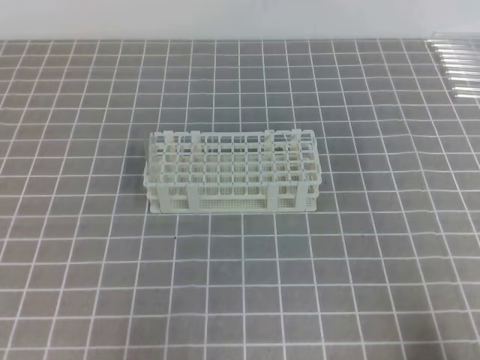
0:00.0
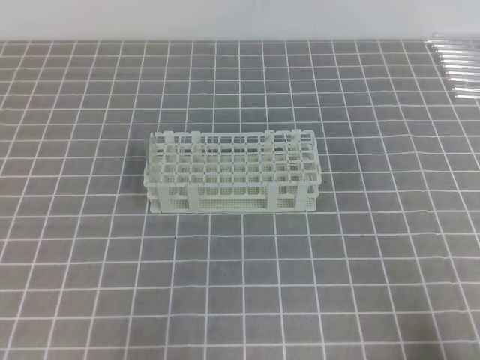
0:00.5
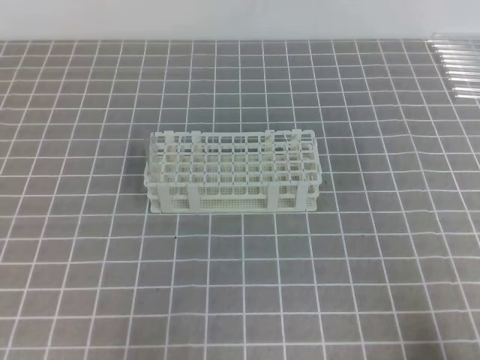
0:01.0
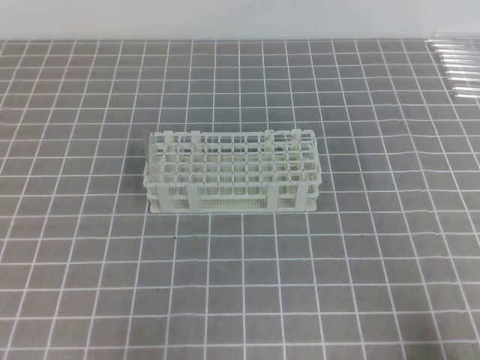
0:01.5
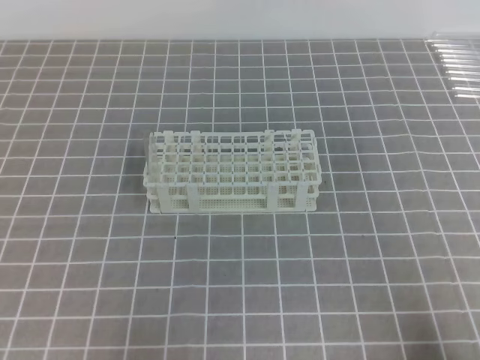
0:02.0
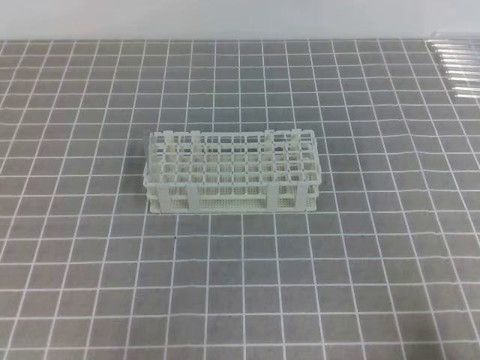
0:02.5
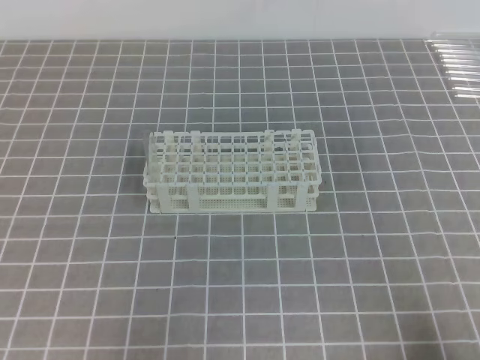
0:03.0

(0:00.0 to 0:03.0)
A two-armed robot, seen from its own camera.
0:00.0 - 0:03.0: Both grippers stay about where they are.

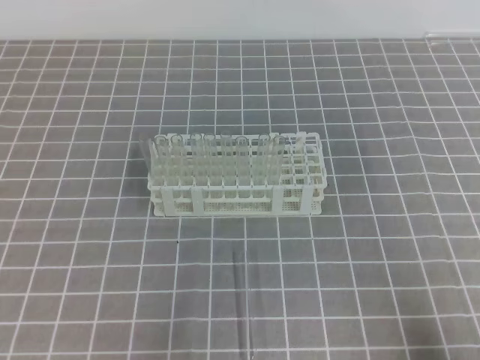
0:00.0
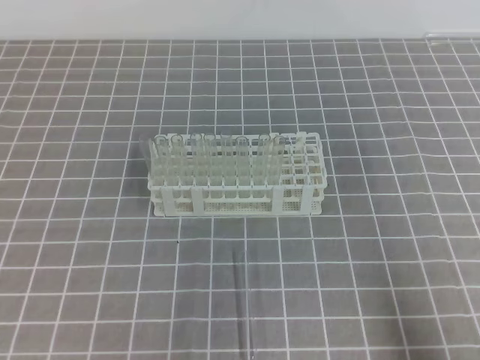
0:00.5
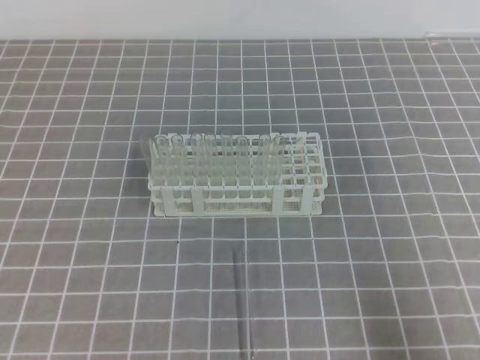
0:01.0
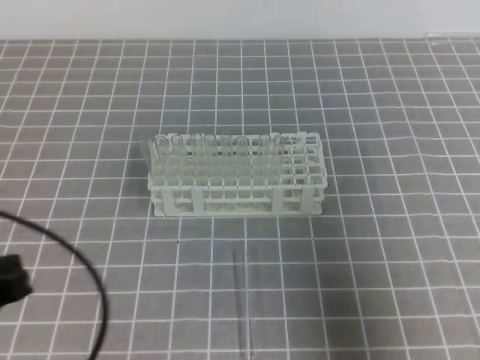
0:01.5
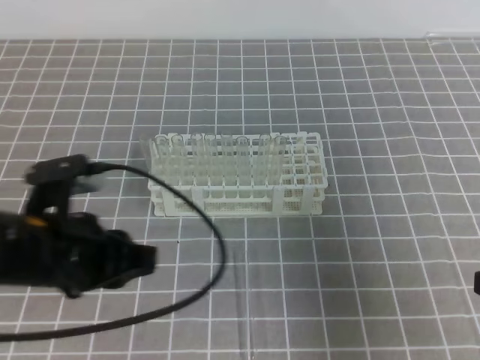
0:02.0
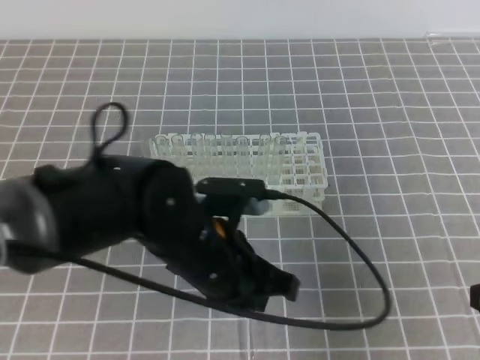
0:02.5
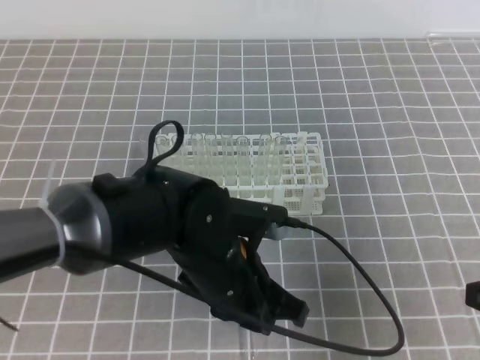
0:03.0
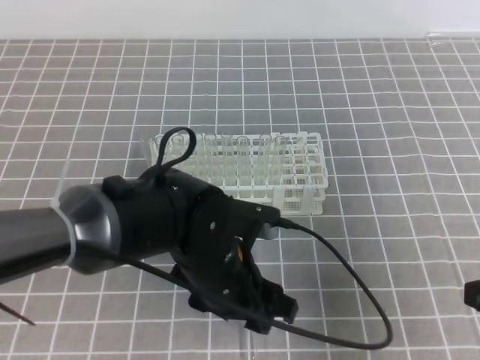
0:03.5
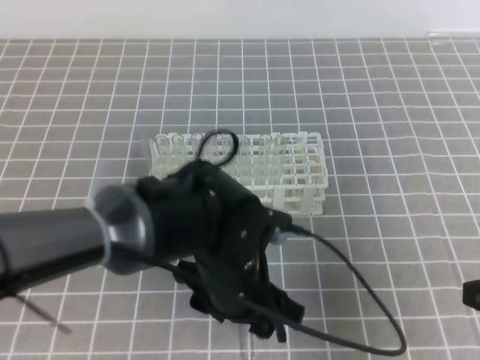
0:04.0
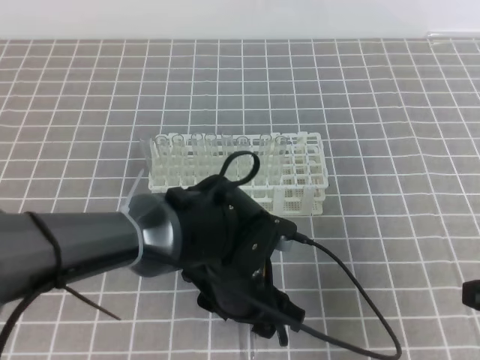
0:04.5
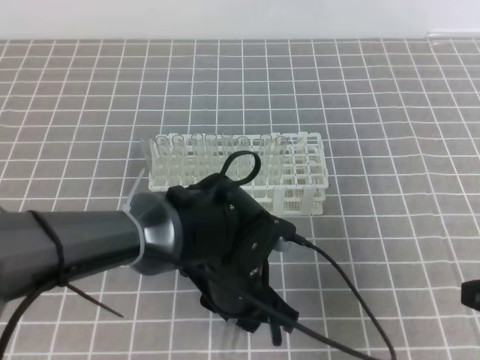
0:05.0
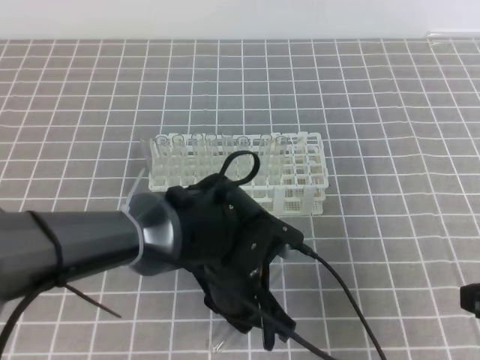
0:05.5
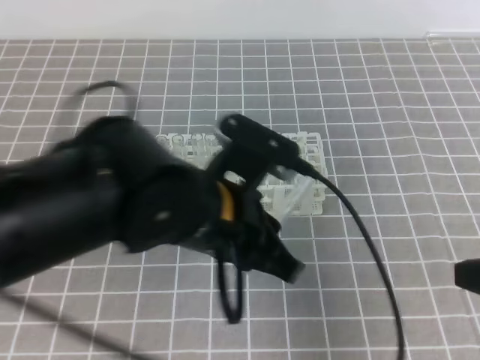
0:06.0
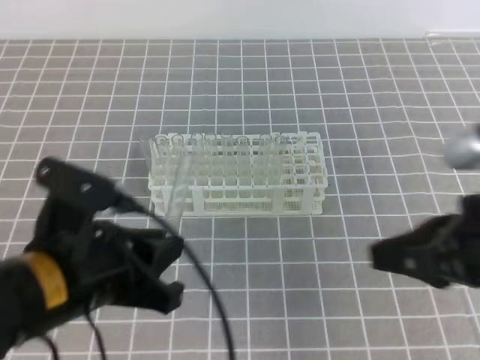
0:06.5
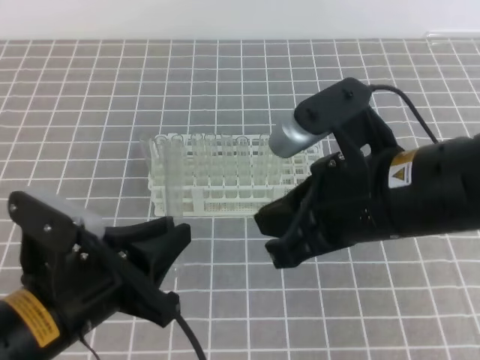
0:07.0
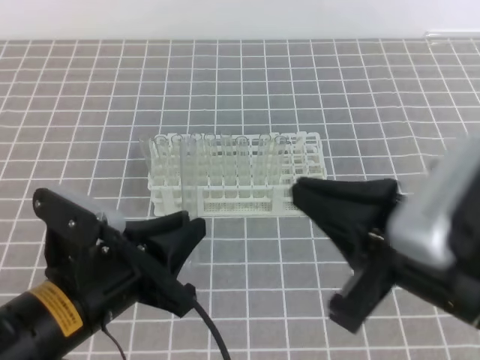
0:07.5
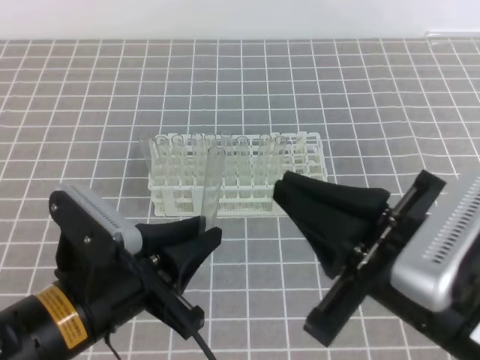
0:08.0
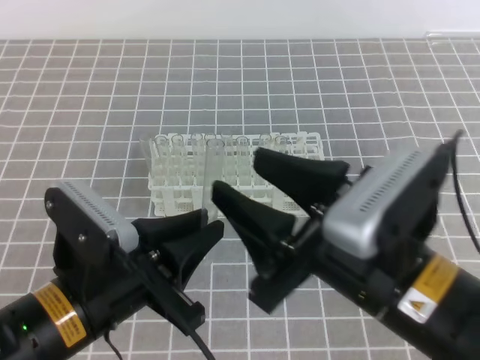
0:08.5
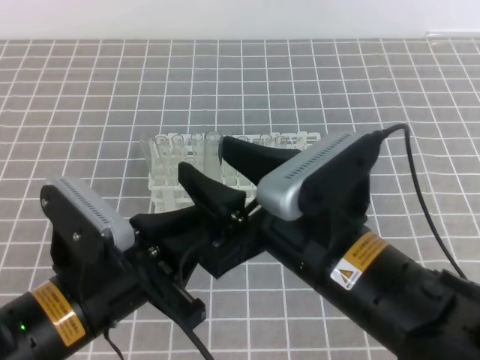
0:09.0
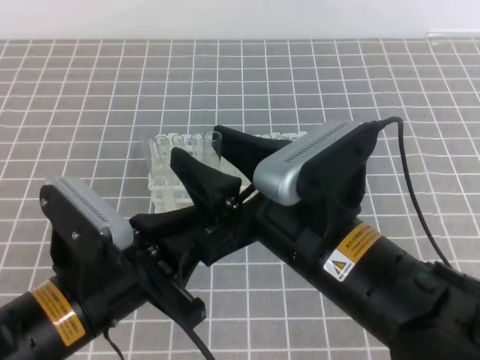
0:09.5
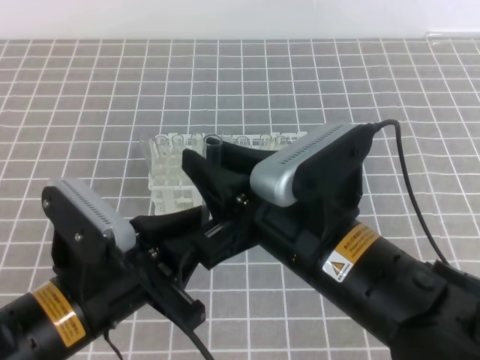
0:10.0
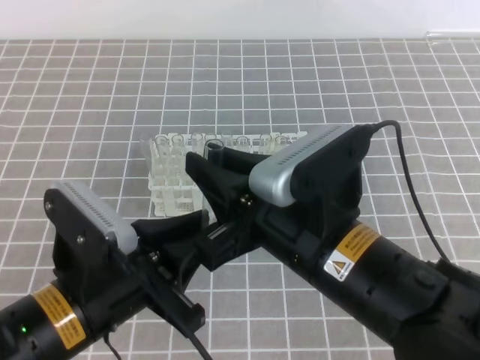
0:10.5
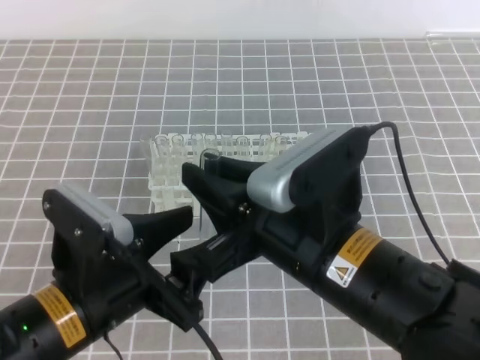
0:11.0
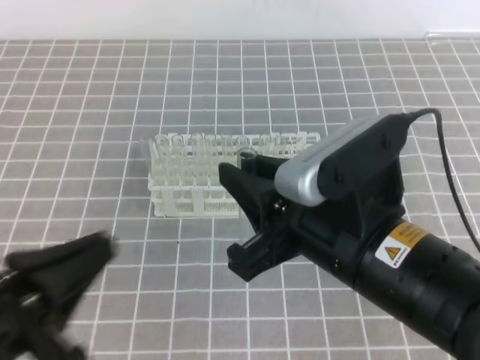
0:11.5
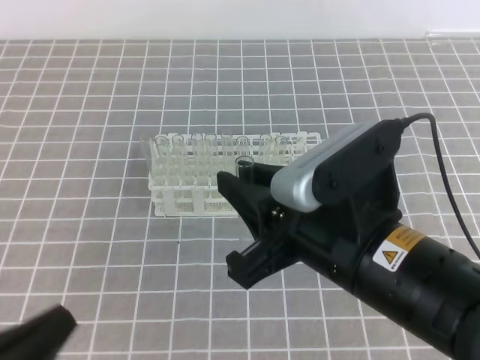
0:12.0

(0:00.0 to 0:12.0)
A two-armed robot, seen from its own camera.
0:00.0 - 0:02.0: The right gripper shifts approximately 10 cm forward and upward, while the left gripper goes approximately 15 cm forward and to the right.
0:02.0 - 0:04.0: The left gripper moves to the right, roughly 15 cm, and opens.
0:04.0 - 0:06.0: The left gripper is displaced upward by approximately 10 cm, and closes its fingers.
0:06.0 - 0:08.0: Both grippers move to the left, roughly 10 cm.
0:08.0 - 0:10.0: The right gripper travels to the left by about 10 cm, and opens, then closes again.
0:10.0 - 0:12.0: The left gripper shifts approximately 15 cm to the left and backward, and opens, then closes once more.

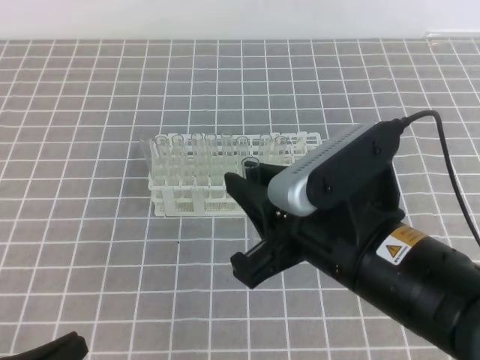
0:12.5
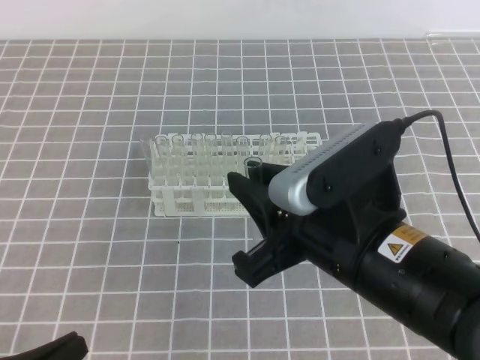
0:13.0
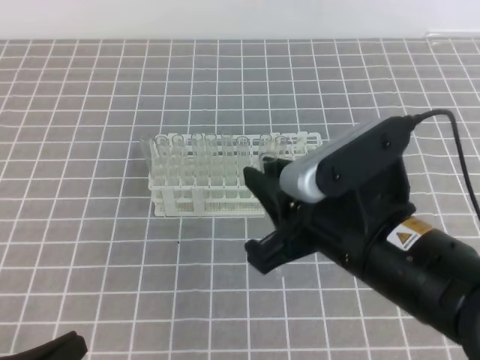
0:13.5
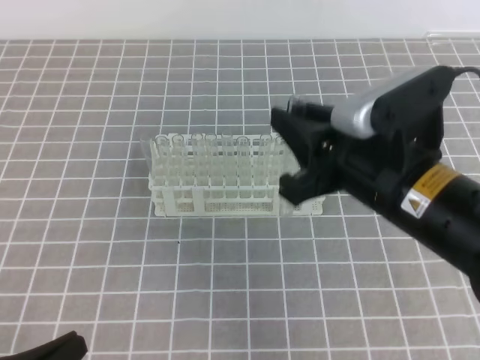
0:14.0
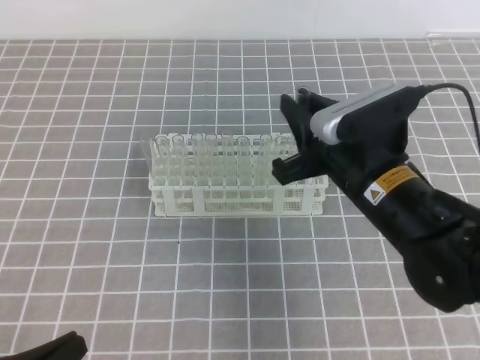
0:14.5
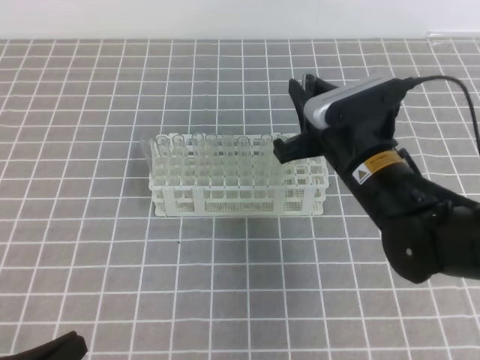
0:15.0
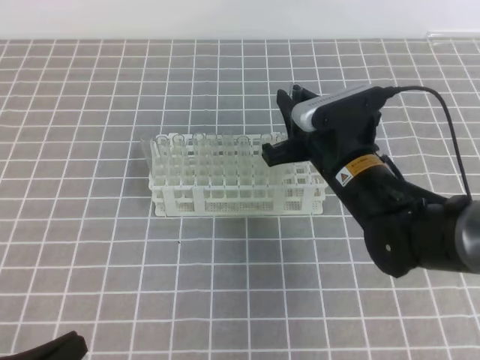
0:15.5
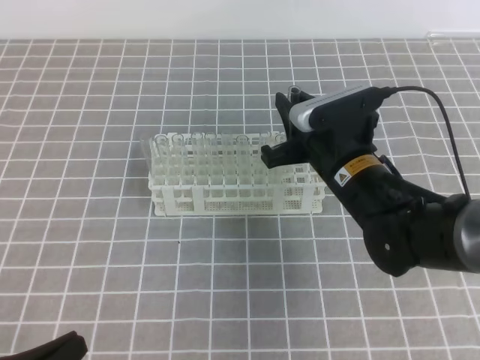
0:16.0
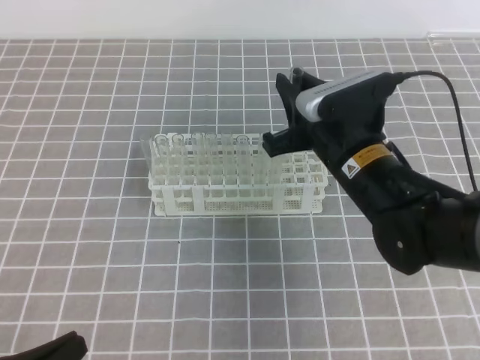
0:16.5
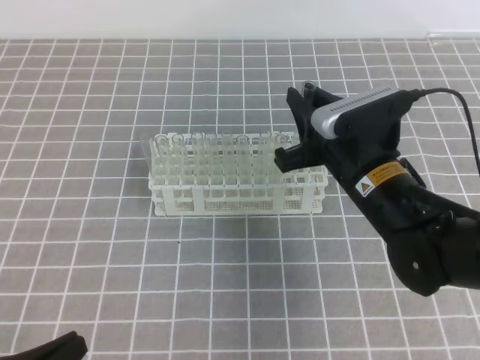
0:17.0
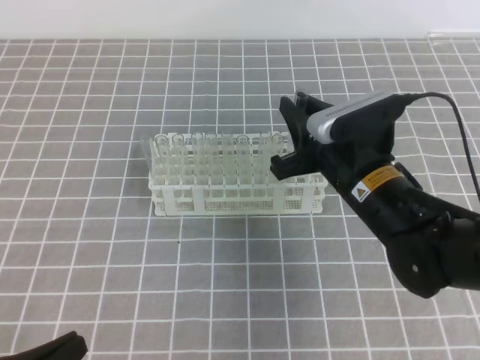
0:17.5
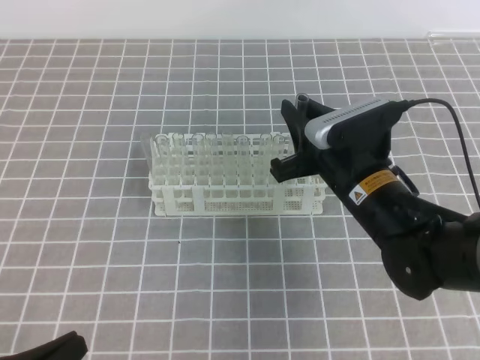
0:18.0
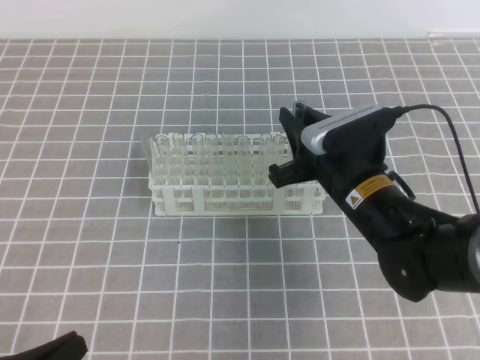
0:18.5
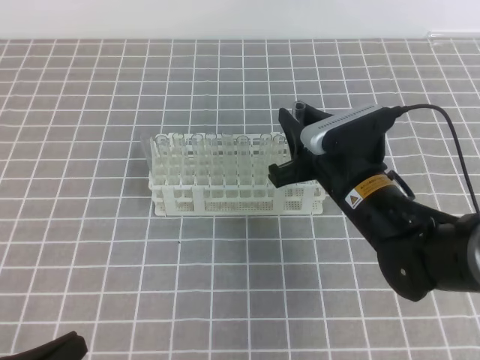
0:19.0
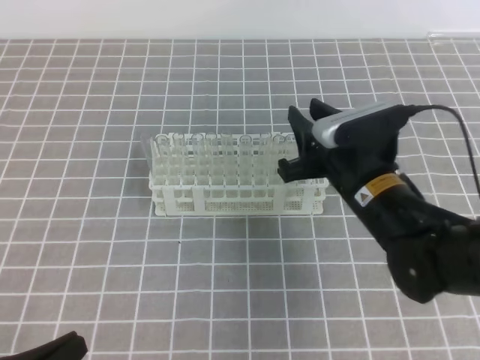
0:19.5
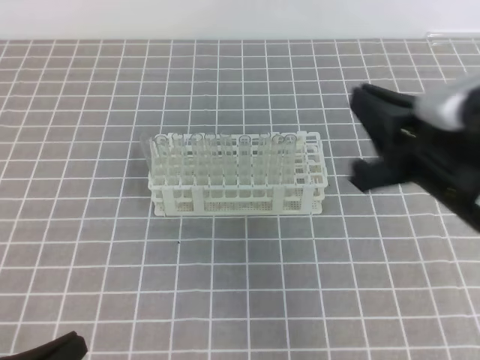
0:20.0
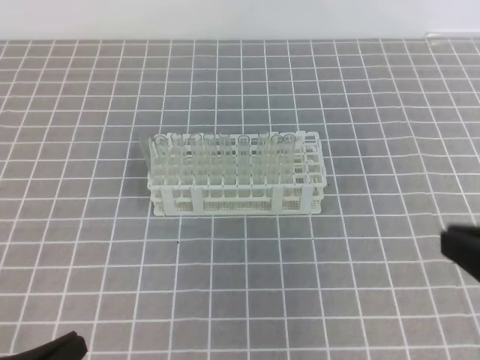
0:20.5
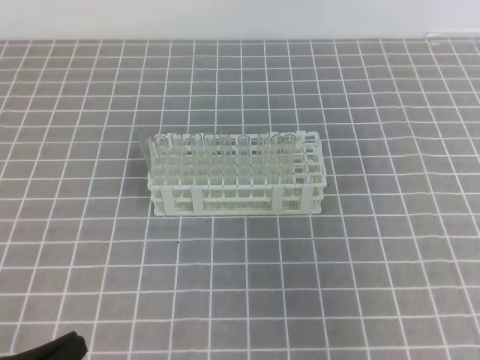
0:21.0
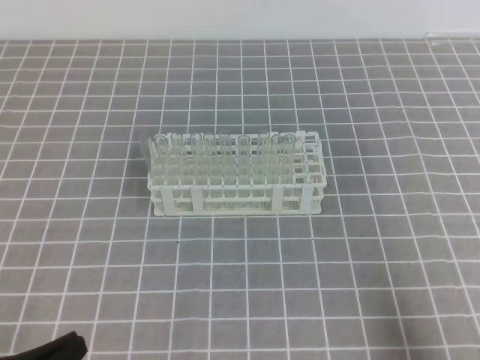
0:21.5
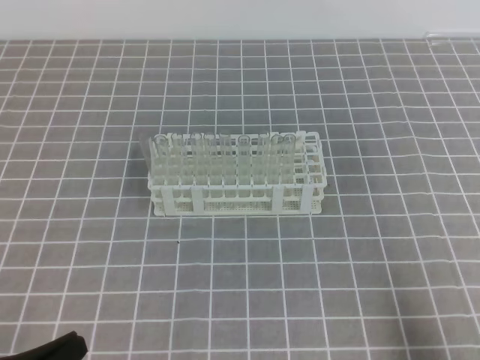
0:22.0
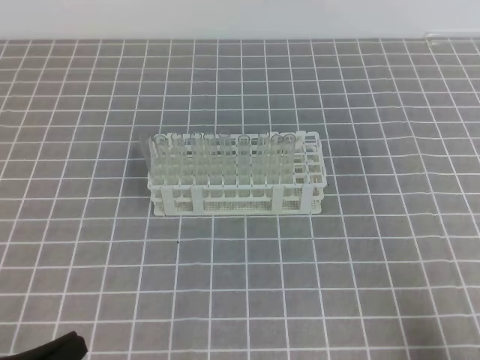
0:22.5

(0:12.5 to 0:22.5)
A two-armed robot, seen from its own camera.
0:12.5 - 0:14.5: The right gripper shifts approximately 10 cm forward.
0:14.5 - 0:16.5: The right gripper moves some 5 cm.
0:16.5 - 0:18.5: The grippers stay close to where they were, moving slightly.
0:18.5 - 0:20.5: The right gripper travels backward, upward and to the right by about 25 cm.
0:20.5 - 0:22.5: The right gripper moves downward and to the right, roughly 15 cm.

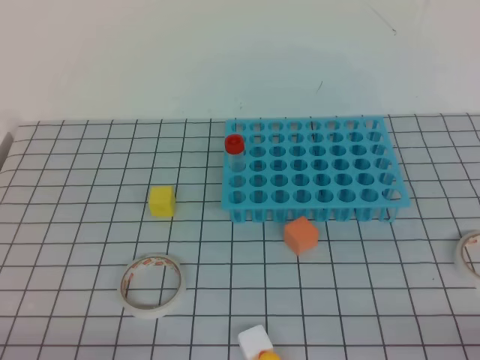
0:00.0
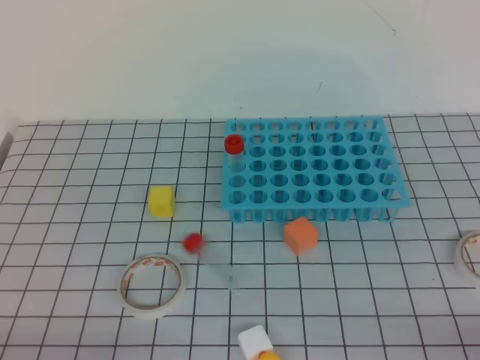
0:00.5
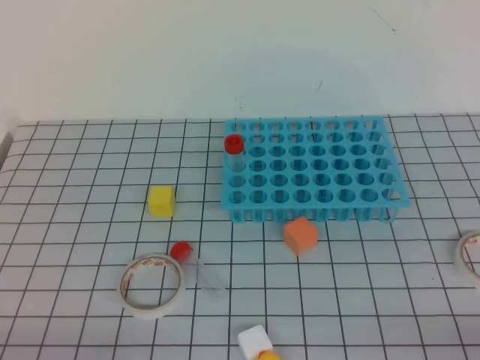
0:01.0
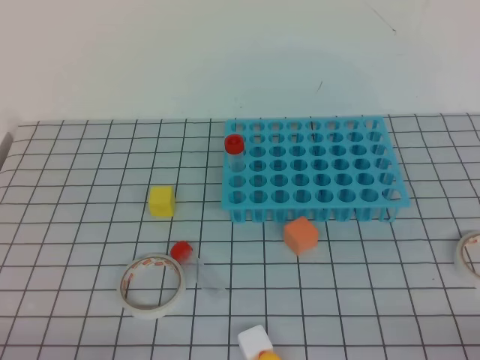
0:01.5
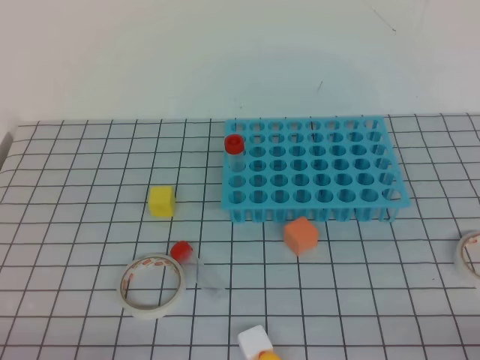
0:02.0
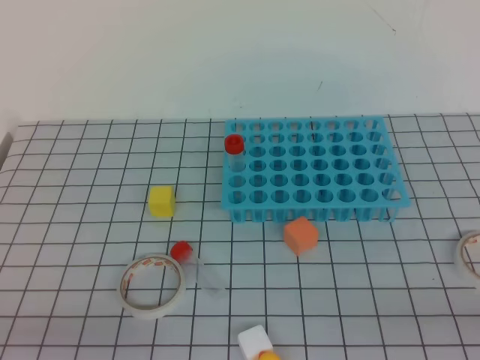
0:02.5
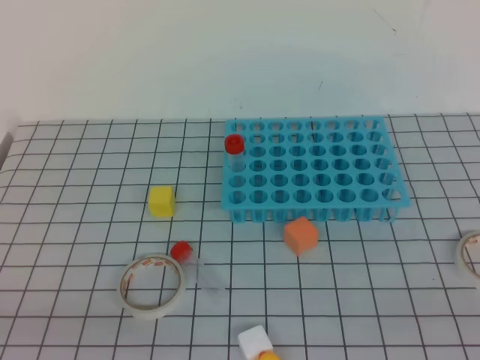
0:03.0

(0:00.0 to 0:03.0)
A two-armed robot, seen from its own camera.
0:00.0 - 0:01.5: The two grippers keep their place.
